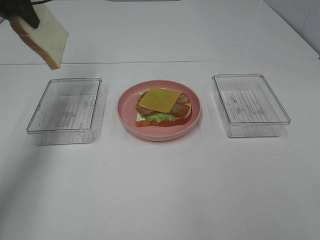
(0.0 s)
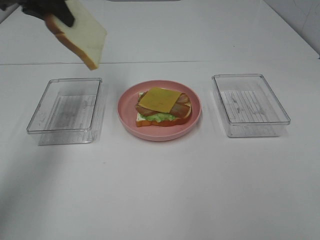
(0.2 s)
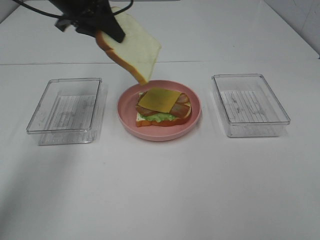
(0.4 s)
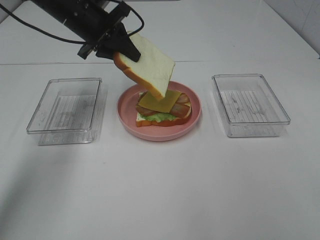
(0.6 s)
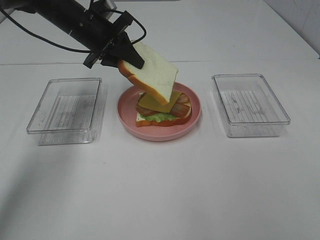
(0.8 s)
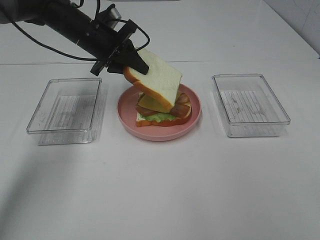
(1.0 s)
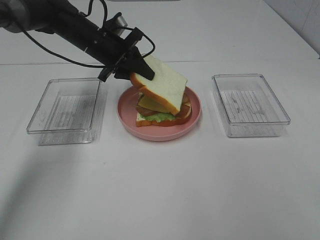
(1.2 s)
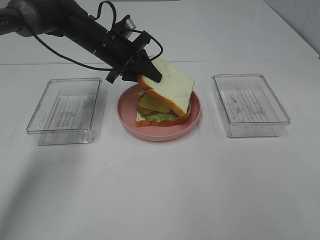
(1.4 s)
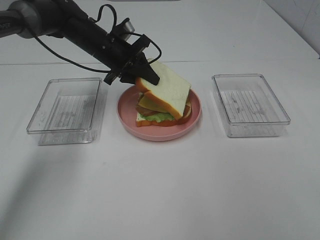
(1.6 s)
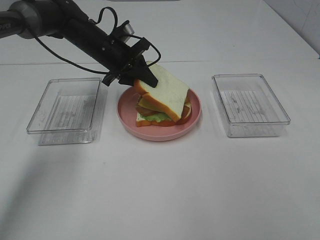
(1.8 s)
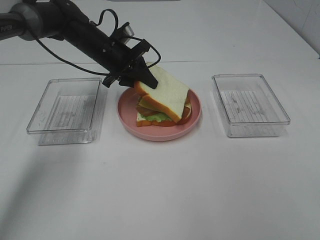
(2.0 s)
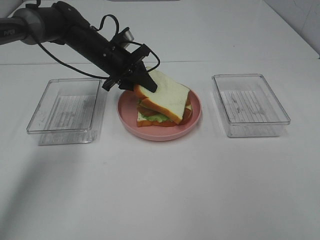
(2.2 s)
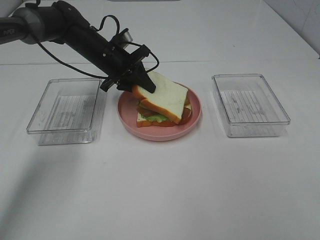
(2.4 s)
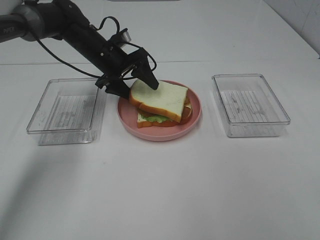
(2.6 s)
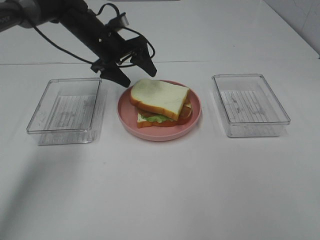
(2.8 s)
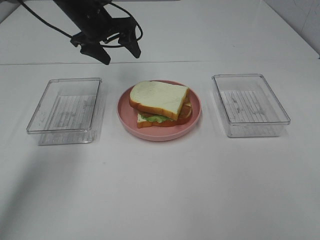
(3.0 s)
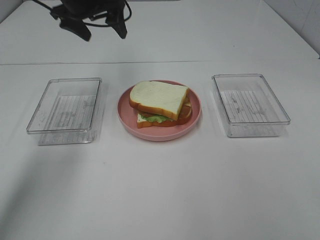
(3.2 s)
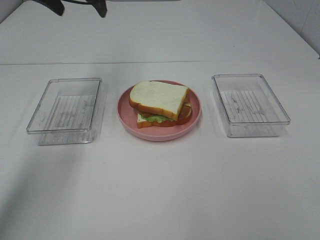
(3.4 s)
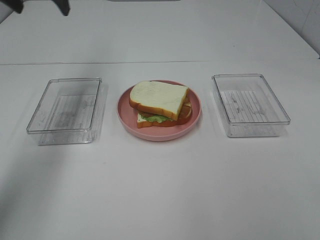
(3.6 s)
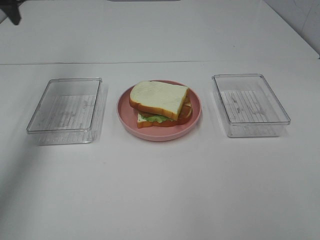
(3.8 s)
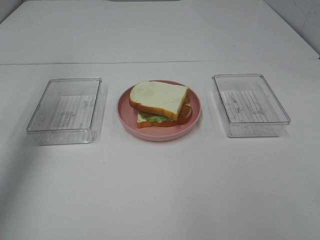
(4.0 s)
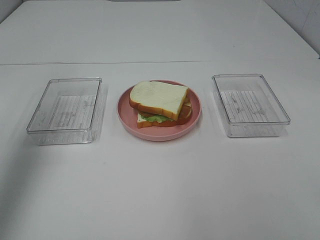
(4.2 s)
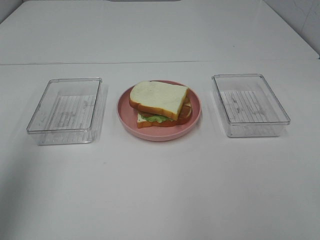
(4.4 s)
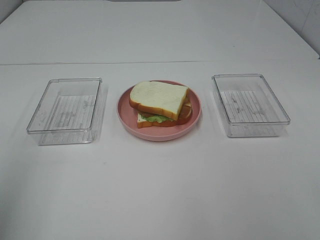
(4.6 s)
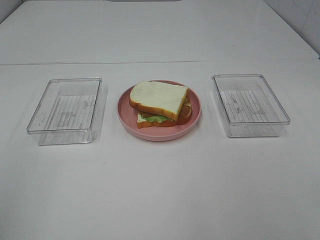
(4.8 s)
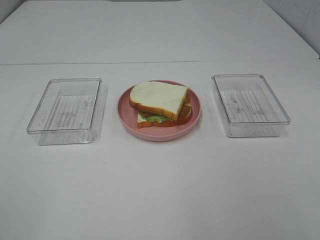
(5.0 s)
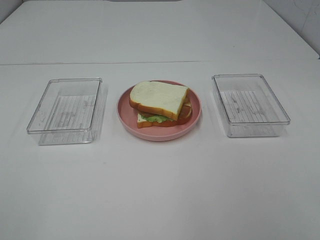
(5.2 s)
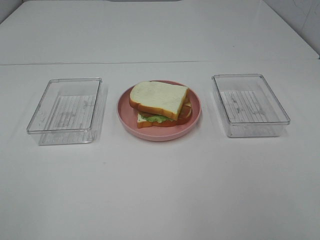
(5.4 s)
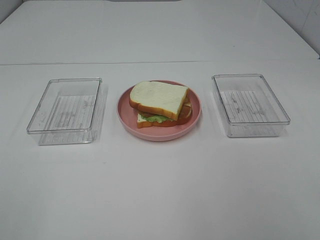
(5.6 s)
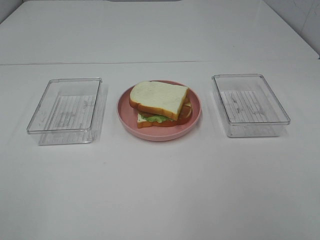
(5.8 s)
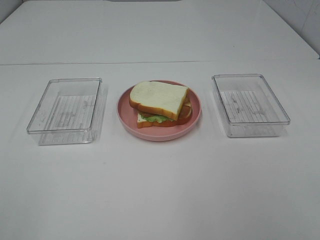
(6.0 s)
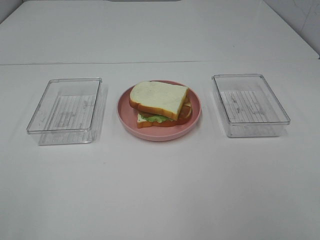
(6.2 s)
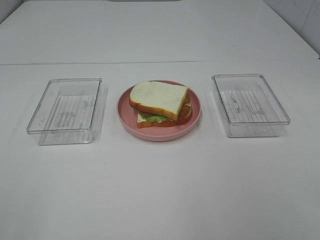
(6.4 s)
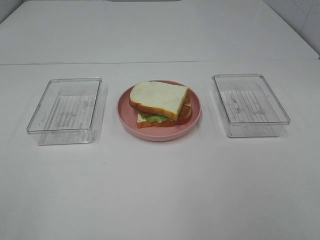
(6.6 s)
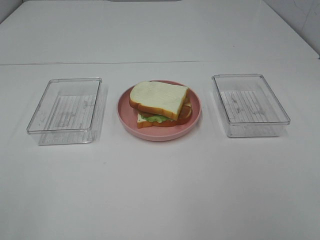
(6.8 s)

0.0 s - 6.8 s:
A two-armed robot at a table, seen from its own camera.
Task of the whole recording: Make sandwiches.
Step, 0.0 s - 3.0 s: Left hand:place the bread slice on the cheese slice.
0.0 s - 1.4 s: The left gripper shifts approximately 25 cm downward and to the right.
1.4 s - 2.8 s: The left gripper opens.
2.8 s - 4.0 s: The left gripper moves to the left, upward and backward, roughly 30 cm.
4.0 s - 5.4 s: The left gripper goes approximately 35 cm backward.
5.4 s - 6.8 s: Neither gripper changes place.

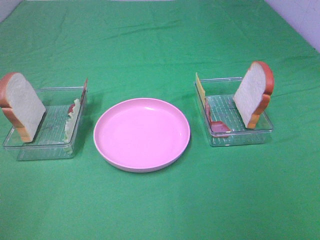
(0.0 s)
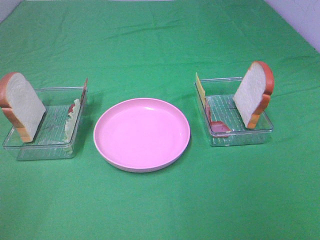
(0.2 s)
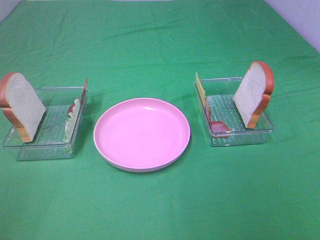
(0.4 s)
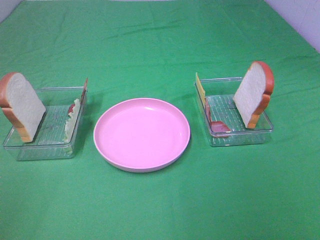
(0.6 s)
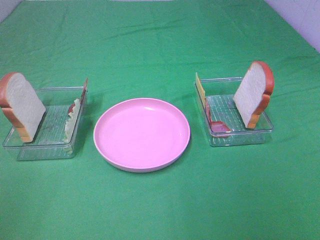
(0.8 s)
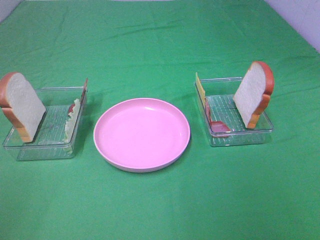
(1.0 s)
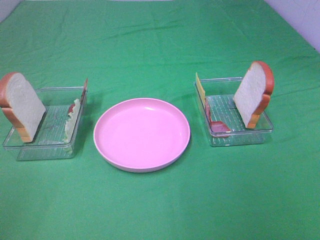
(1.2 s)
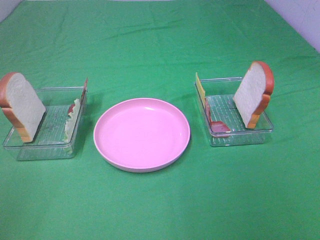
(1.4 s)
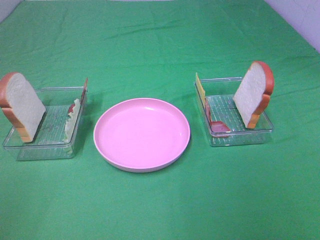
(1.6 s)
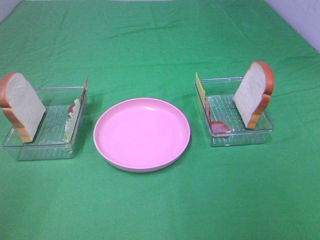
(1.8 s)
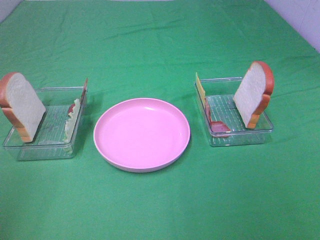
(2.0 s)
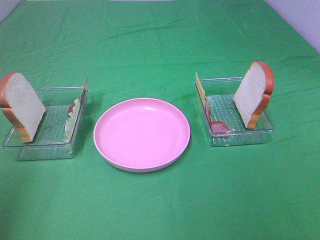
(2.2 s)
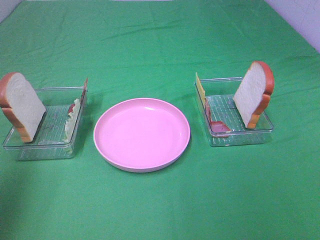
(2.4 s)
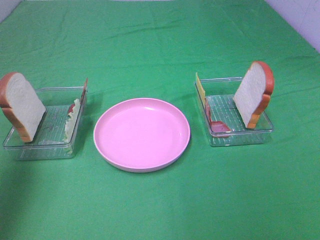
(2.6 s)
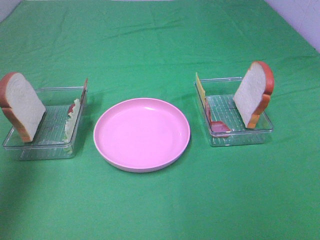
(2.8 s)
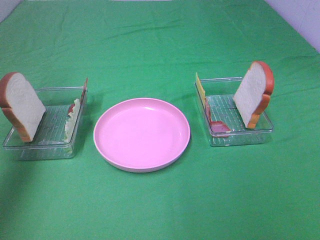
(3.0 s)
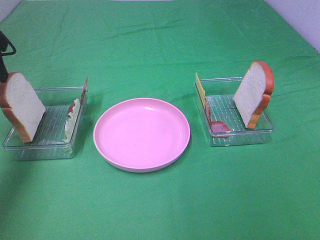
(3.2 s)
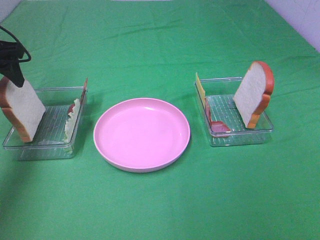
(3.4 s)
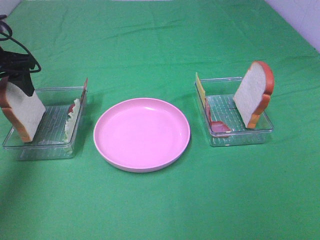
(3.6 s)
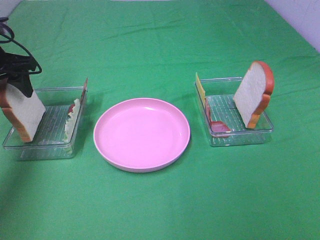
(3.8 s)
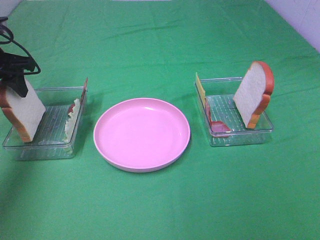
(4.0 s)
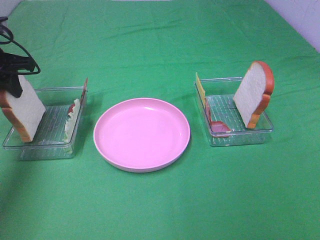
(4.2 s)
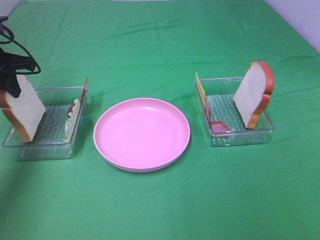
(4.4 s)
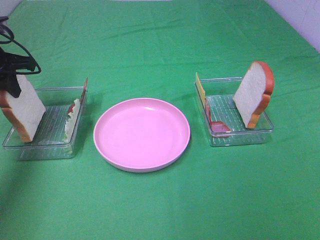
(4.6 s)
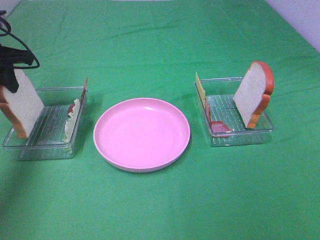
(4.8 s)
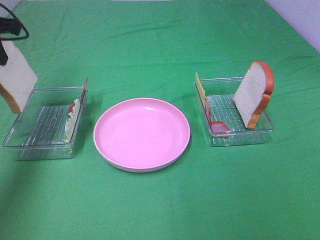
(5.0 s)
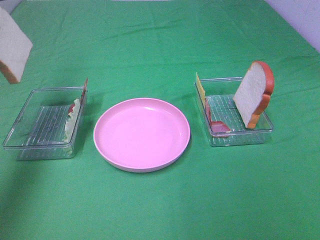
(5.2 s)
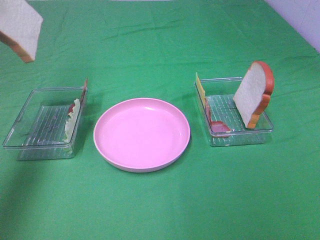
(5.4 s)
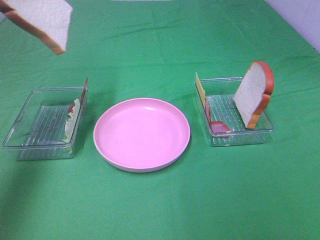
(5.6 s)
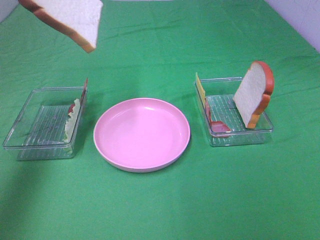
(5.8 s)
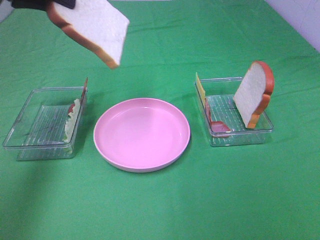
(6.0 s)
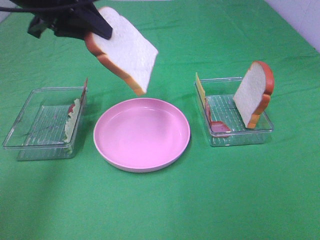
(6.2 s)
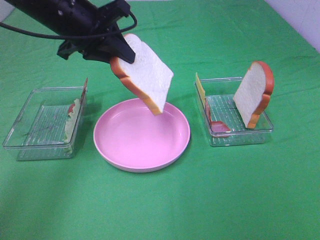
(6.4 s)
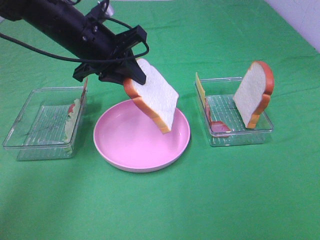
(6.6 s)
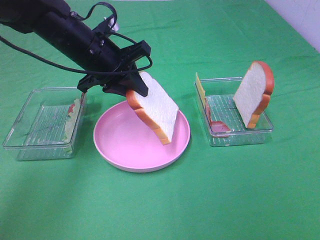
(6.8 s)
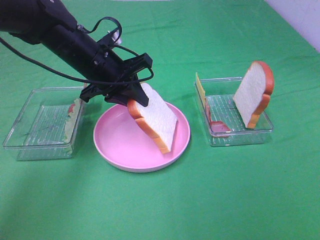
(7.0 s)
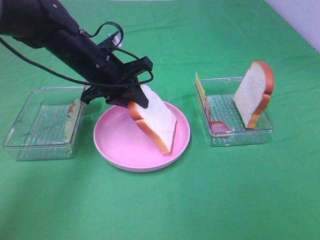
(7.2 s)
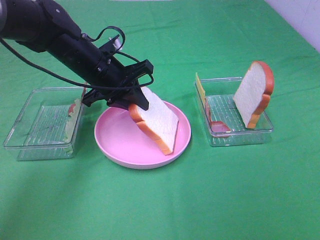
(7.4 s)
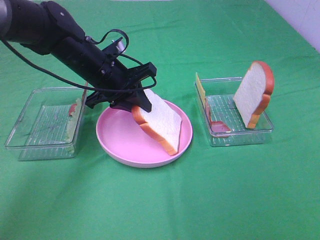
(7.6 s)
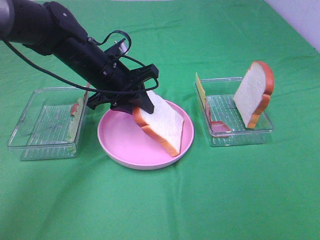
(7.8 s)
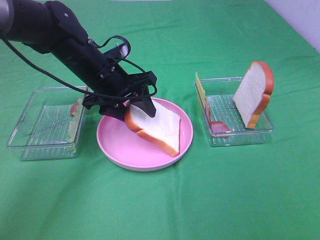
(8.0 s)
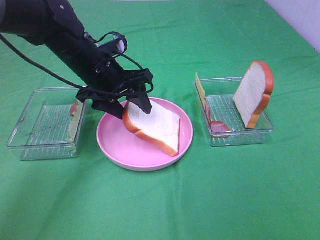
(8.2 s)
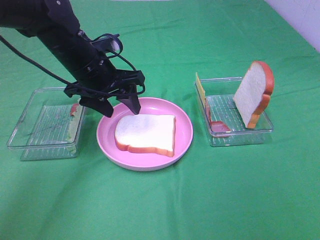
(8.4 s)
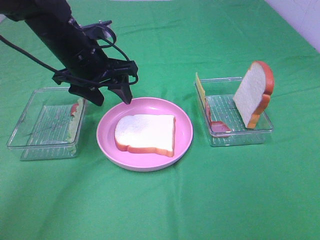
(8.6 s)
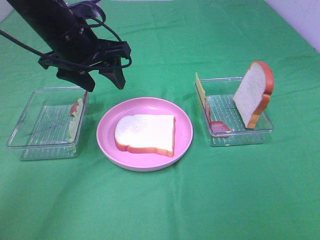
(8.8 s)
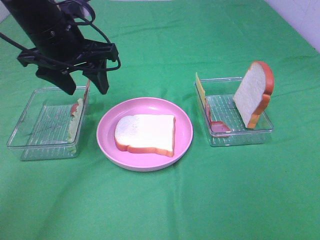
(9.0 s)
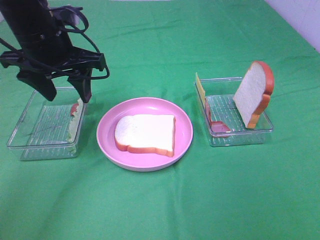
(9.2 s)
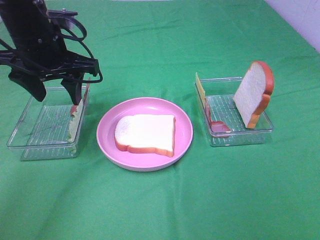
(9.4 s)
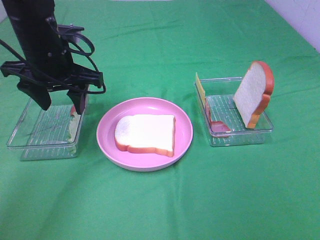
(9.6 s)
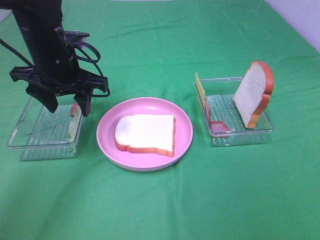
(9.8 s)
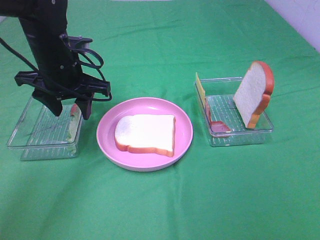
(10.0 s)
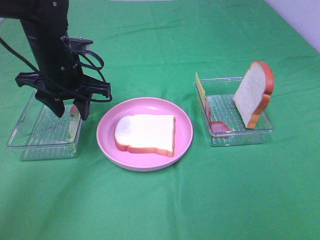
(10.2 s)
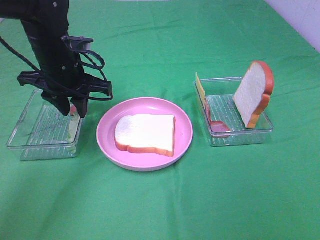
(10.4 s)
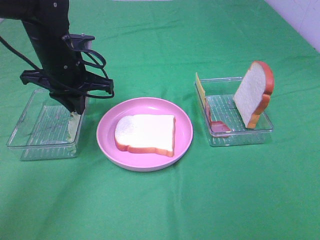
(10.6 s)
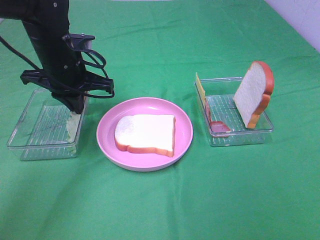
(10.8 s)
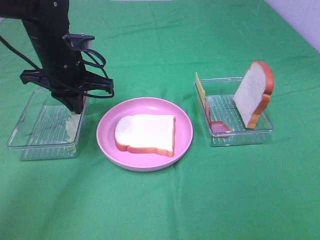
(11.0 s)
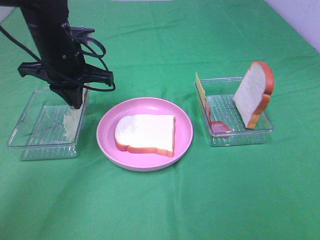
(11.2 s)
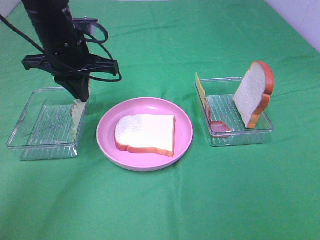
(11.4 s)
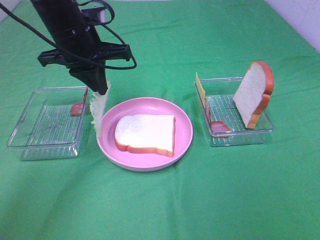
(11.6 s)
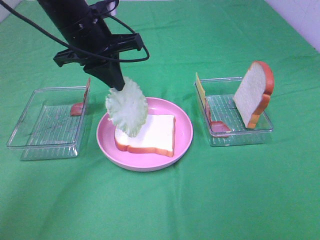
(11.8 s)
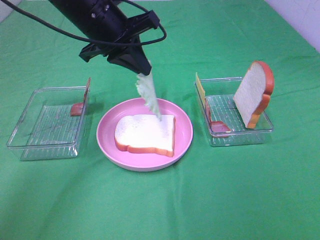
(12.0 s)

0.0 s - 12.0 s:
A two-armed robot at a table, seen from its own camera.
Task of the whole recording: Make sandwiches.
Step, 0.0 s - 4.6 s: Left hand:grab the bread slice.
Step, 4.8 s - 8.4 s: Left hand:place the bread slice on the plate.
Step, 8.6 s - 10.6 s: Left hand:grab the lettuce slice.
0.0 s - 1.6 s: Both grippers stay about where they are.
1.6 s - 3.0 s: The left gripper heads forward, covering some 35 cm.
3.0 s - 4.4 s: The left gripper heads downward and forward, covering approximately 10 cm, and closes up.
4.4 s - 6.0 s: The left gripper travels upward and to the right by approximately 15 cm.
6.0 s - 7.6 s: The left gripper goes roughly 20 cm downward and to the right.
7.6 s - 9.0 s: The left gripper heads upward, covering roughly 10 cm, and opens its fingers.
9.0 s - 10.4 s: The left gripper moves downward, some 5 cm, and closes its fingers.
10.4 s - 12.0 s: The left gripper heads upward and to the right, covering approximately 10 cm, and closes.

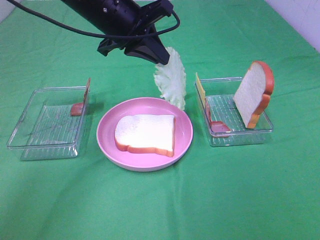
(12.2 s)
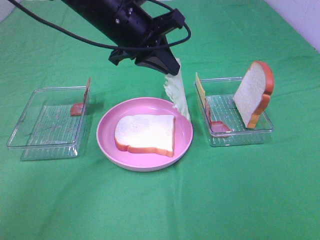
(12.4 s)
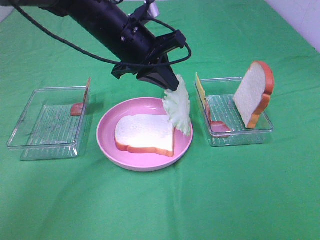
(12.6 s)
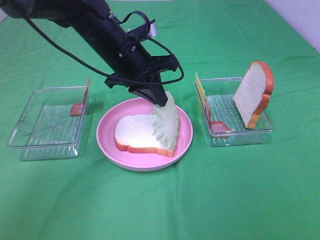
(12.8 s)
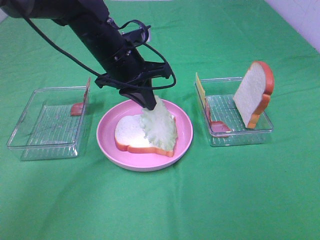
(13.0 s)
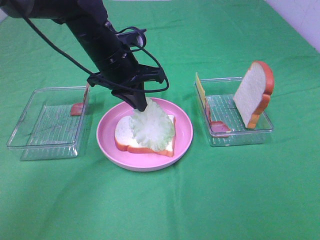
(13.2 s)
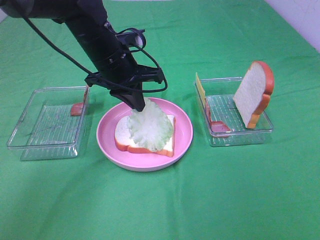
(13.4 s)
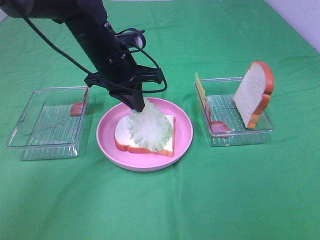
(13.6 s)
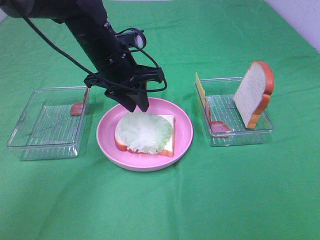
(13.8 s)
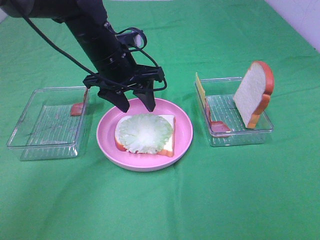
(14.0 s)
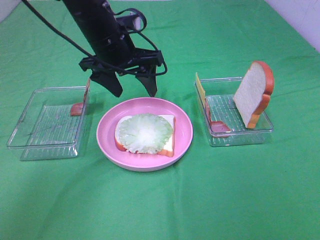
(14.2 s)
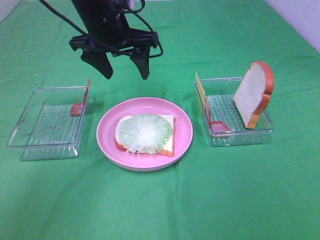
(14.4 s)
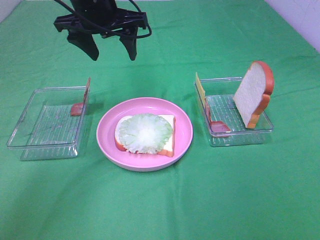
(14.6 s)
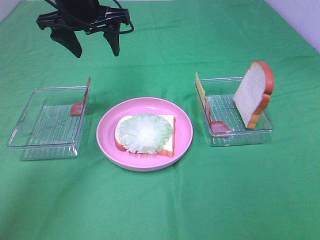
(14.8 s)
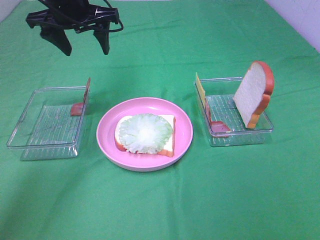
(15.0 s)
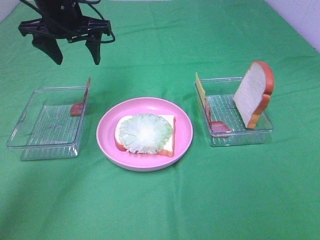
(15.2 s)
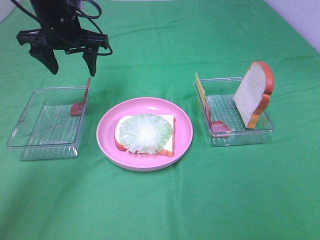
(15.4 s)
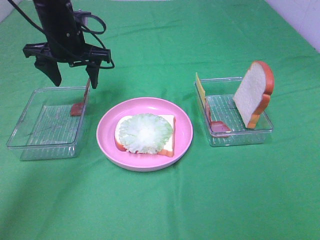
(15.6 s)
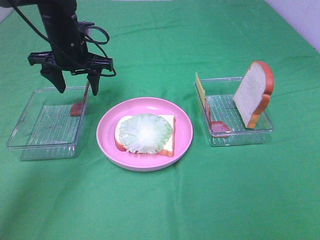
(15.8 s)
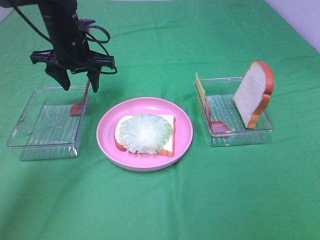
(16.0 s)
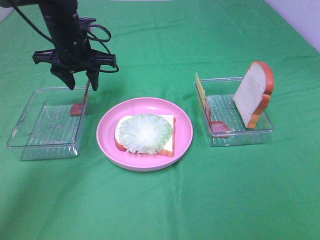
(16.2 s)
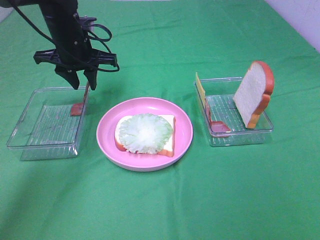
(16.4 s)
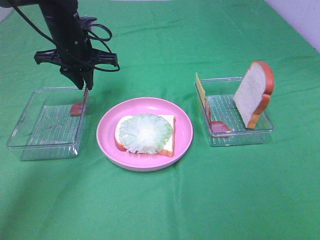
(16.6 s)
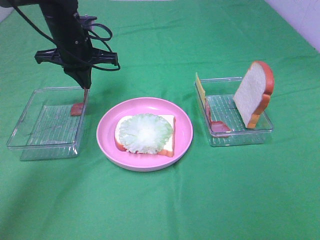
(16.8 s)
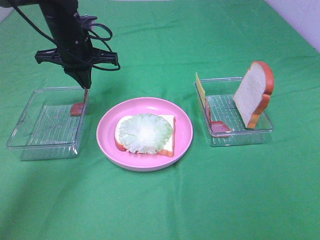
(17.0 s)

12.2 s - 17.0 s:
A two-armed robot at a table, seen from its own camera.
Task of the whole recording: Make sandwiches.
Step, 12.2 s - 14.0 s: Left hand:place the lettuce slice on the bread slice.
Step, 14.2 s - 16.8 s: Left hand:grab the bacon.
12.2 s - 13.8 s: The left gripper travels downward by some 10 cm, and opens up.
13.8 s - 15.4 s: The left gripper travels to the left and forward by roughly 10 cm, and opens.
15.4 s - 17.0 s: The left gripper closes its fingers.
